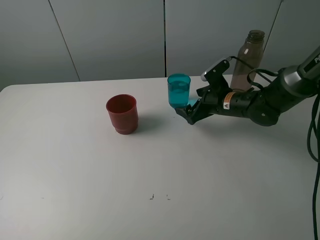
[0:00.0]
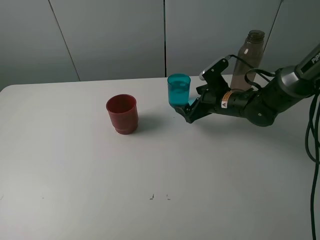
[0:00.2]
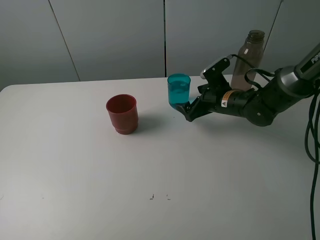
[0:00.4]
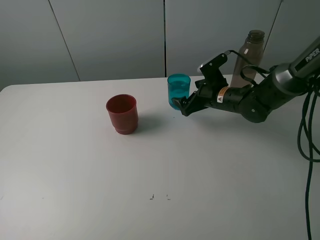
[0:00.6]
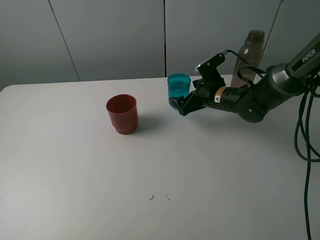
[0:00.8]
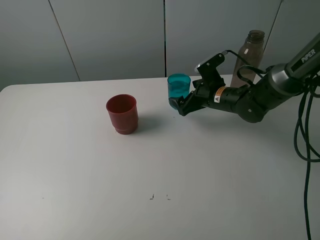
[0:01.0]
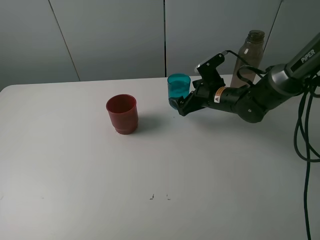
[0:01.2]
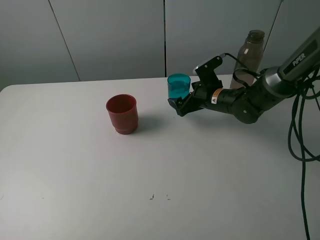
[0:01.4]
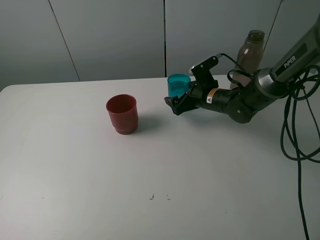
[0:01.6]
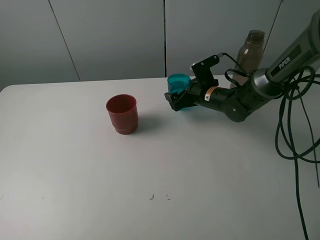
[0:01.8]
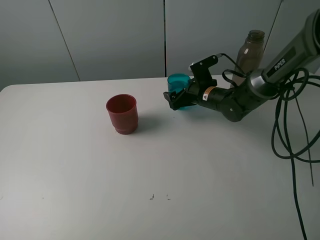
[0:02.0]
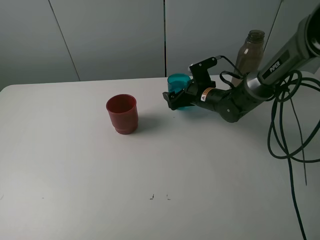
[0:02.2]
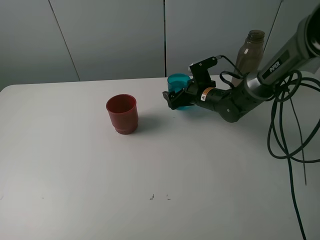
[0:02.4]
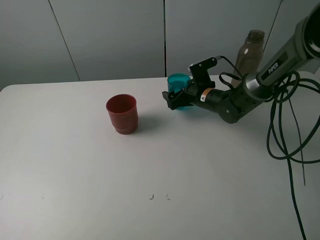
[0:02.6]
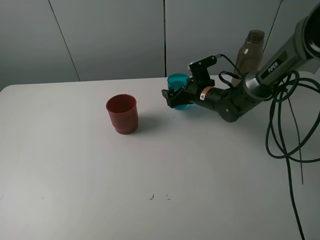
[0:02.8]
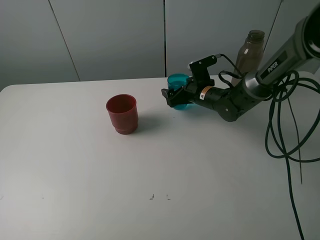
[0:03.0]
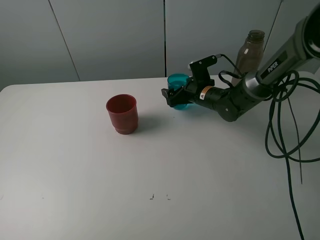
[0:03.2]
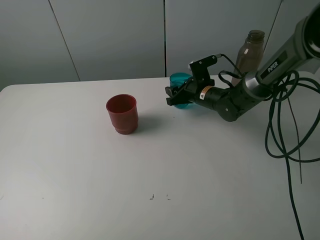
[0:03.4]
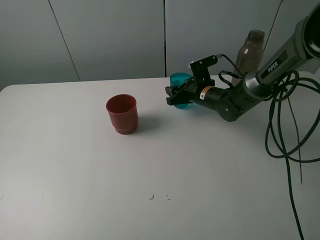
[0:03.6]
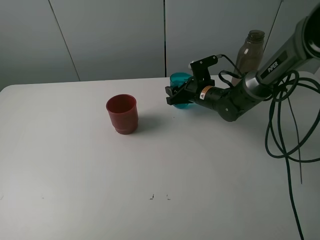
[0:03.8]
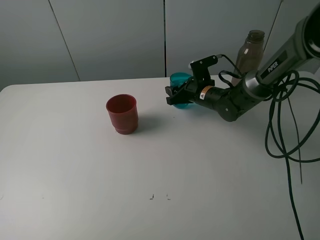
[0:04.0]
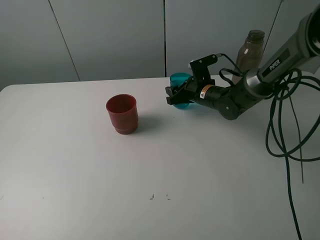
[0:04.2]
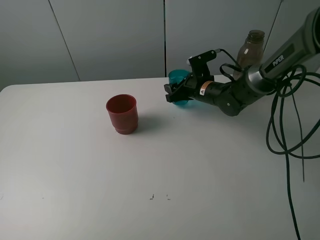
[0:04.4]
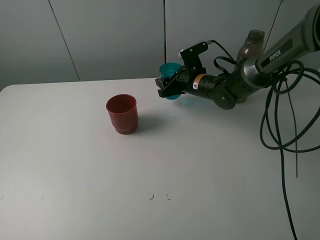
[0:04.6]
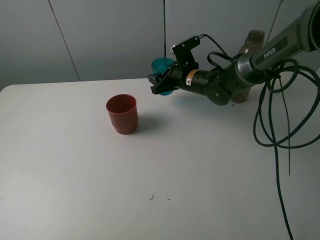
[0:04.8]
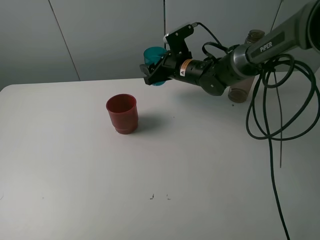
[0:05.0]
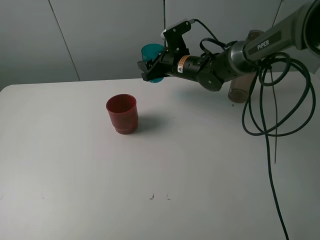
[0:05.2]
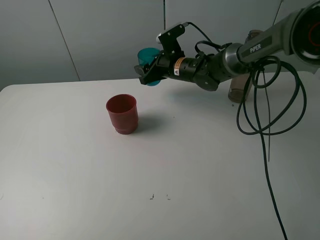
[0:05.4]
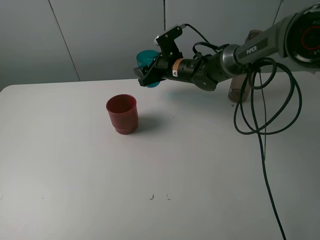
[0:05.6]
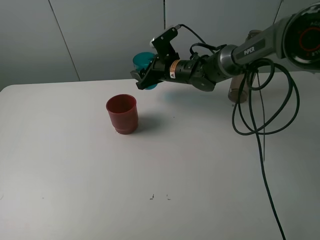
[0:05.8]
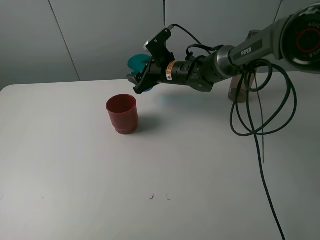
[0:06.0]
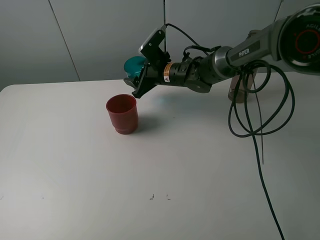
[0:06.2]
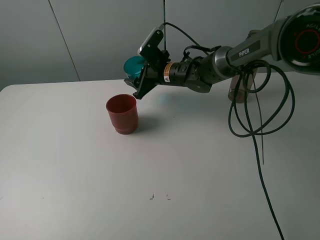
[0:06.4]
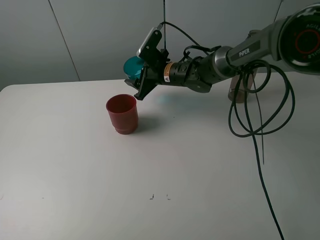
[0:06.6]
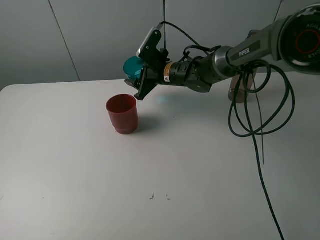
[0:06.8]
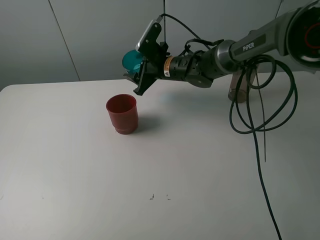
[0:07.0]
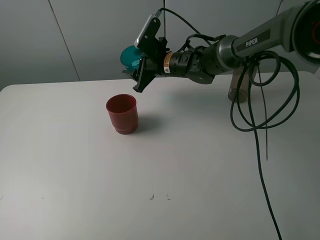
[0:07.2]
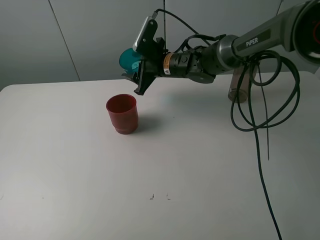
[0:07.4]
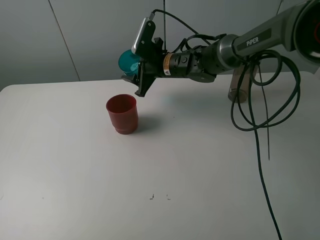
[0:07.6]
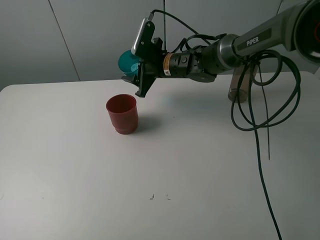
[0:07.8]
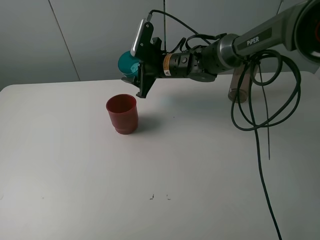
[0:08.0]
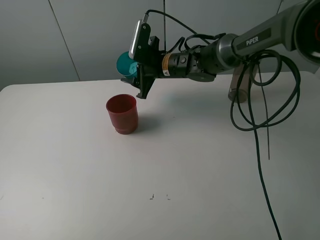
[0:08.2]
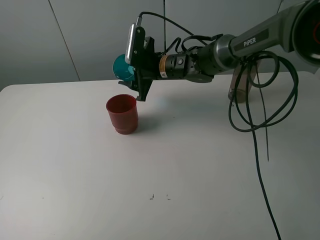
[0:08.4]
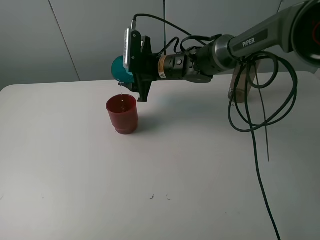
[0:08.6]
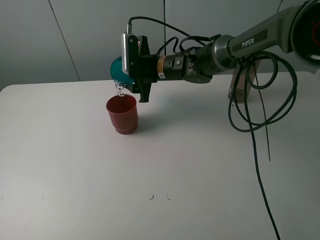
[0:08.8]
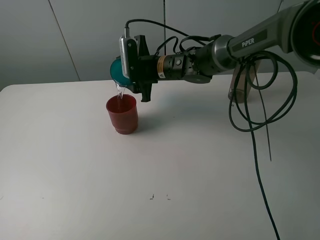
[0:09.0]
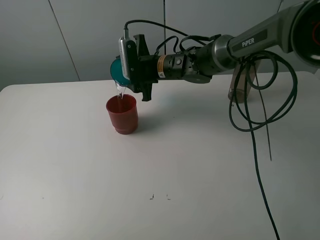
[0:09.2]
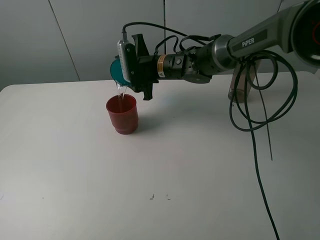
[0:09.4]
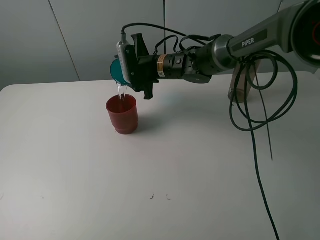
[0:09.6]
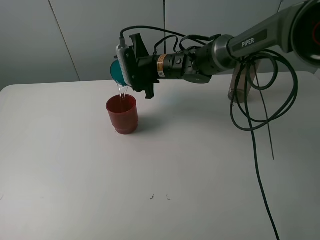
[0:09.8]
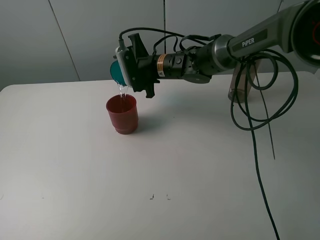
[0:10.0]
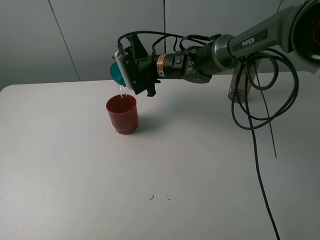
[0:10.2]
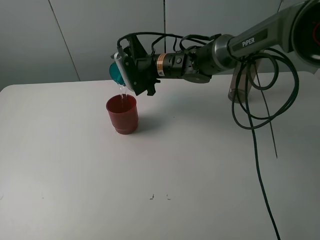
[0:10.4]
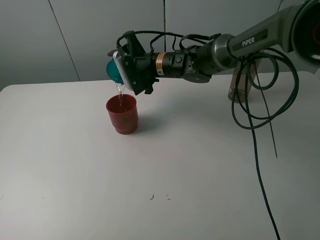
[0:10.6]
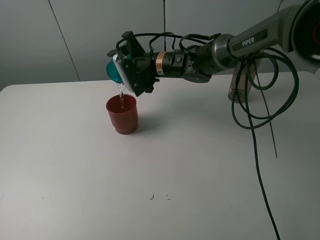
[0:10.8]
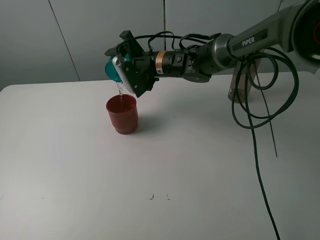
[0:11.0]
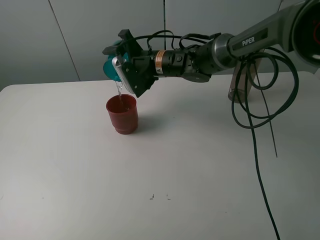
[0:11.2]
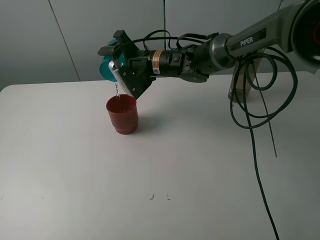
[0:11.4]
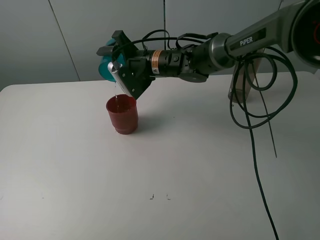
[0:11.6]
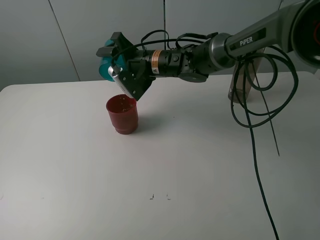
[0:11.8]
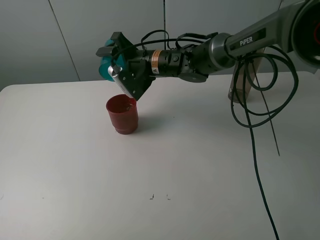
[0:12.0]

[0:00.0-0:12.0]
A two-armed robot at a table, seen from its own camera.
Task of the whole recording: pick up the bottle and pour water into the cup, then pick up the cup containing water and pour it into another cup.
Step, 0:00.0 to 0:03.6: Grasp the blue cup with the right gripper.
0:00.0 to 0:01.6: The grippers move only a little.
0:01.6 to 0:03.0: There are only small adjustments of the grippers.
0:03.0 to 0:04.4: The right gripper closes its fingers.
0:04.4 to 0:06.0: The right gripper travels to the left by some 10 cm.

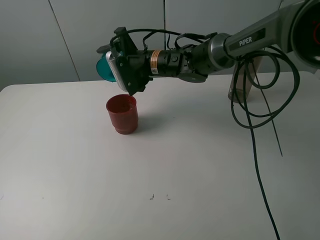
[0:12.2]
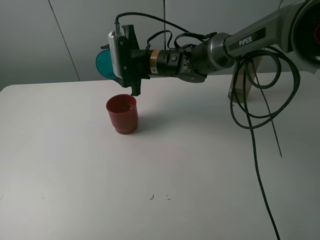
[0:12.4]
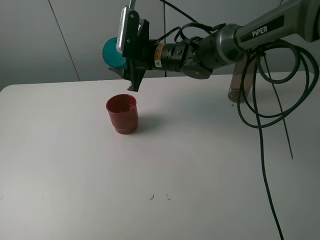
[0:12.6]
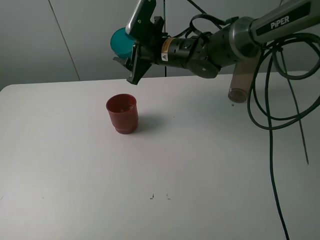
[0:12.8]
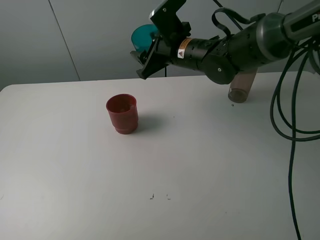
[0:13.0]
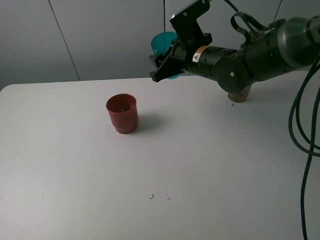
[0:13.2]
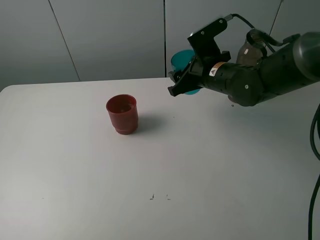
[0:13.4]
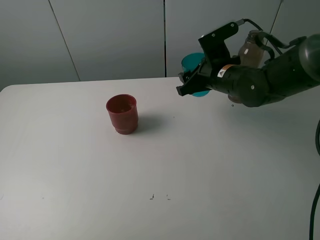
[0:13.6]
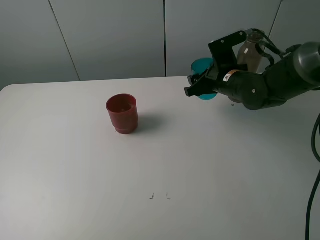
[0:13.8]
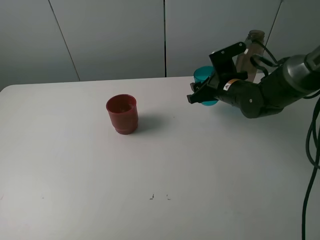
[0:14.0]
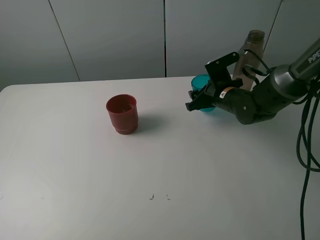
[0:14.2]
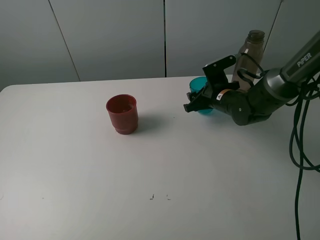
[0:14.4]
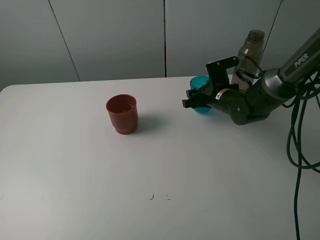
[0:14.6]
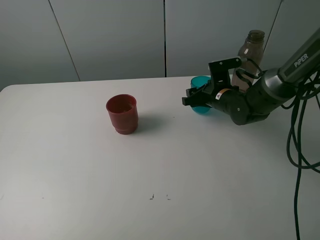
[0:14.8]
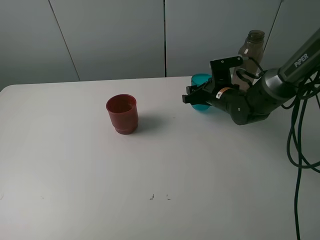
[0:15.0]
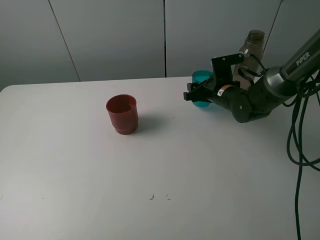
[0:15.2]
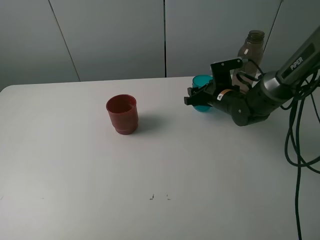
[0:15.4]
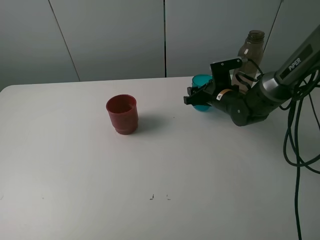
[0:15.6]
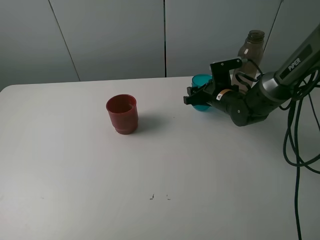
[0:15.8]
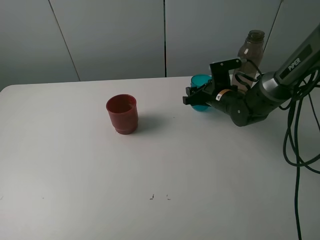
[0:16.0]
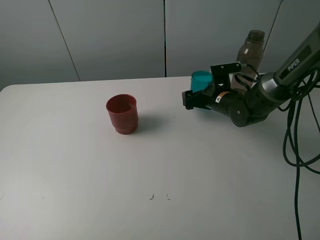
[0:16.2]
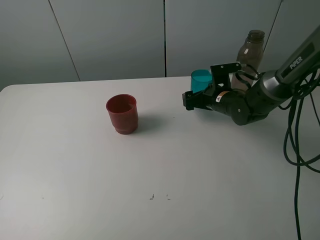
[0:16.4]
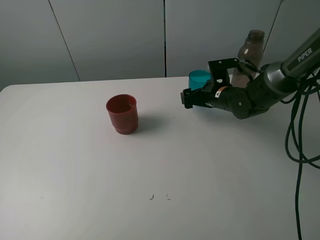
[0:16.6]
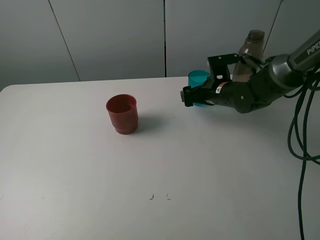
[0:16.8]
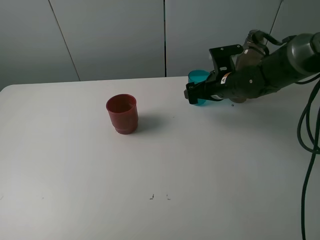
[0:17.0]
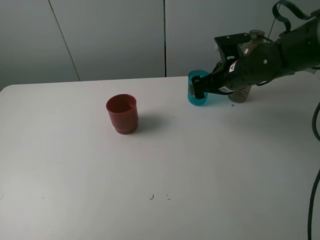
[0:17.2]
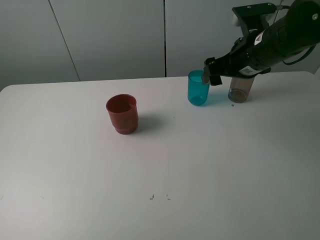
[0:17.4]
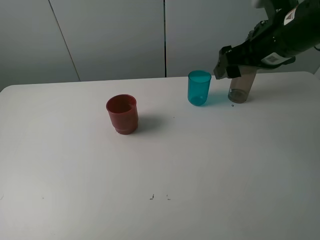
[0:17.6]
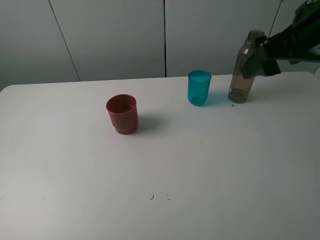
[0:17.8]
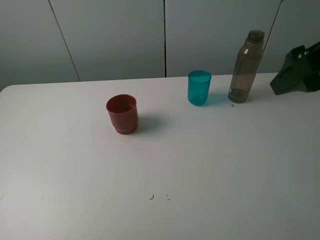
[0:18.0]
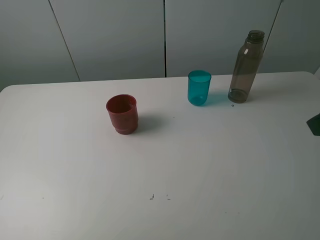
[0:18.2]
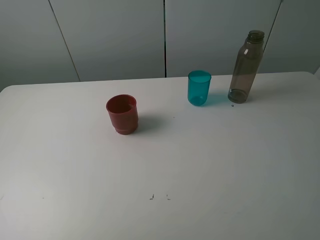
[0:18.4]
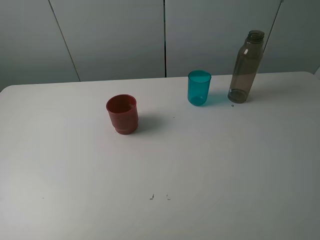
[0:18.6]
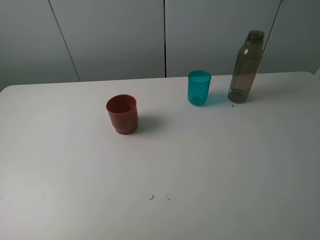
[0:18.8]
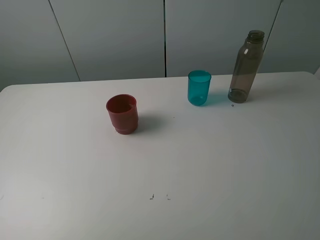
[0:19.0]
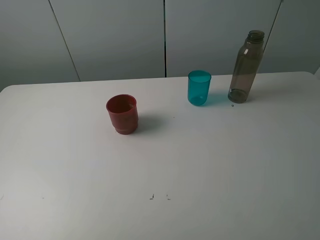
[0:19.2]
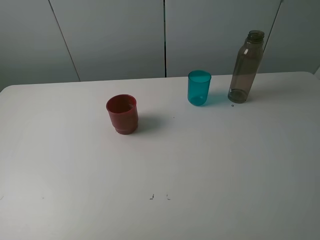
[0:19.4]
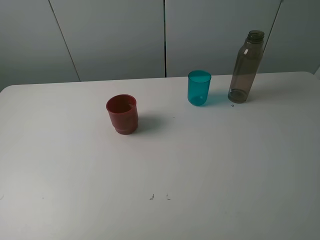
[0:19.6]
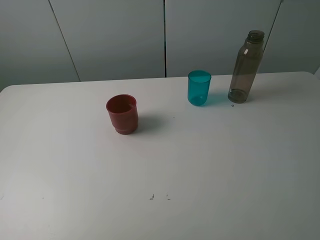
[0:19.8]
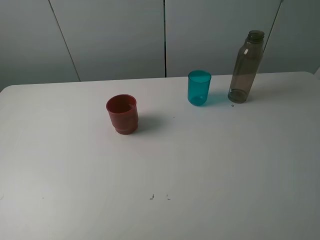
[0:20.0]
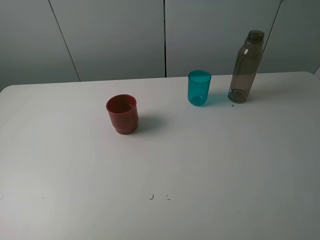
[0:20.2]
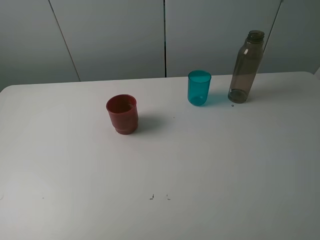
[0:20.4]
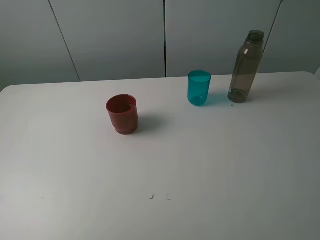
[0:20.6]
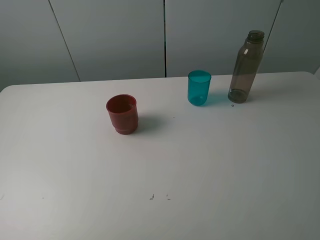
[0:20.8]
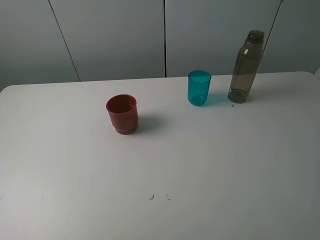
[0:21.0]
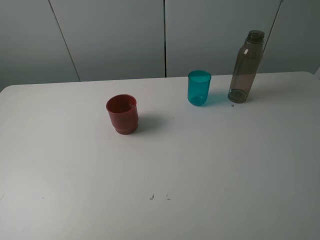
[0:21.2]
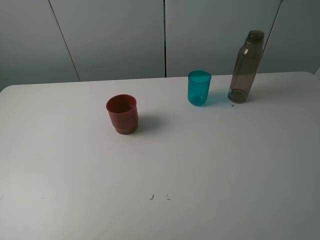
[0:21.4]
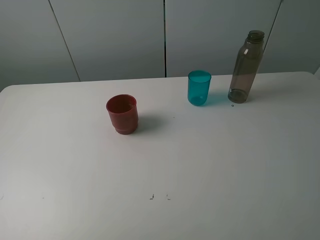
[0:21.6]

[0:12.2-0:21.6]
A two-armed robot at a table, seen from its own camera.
Task of the whole recording: pick up the bottle and pour water into the cup, then pick up the cup containing water and pour it into another cup.
Step, 0:12.2 to 0:16.2: Place the blue cup with the right gripper.
0:12.2 to 0:13.8: The right gripper shifts about 15 cm to the right.
0:13.8 to 0:15.4: The right gripper heads downward, covering roughly 5 cm.
0:15.4 to 0:17.0: The right gripper goes approximately 5 cm upward, and opens up.
0:17.0 to 0:18.4: The right gripper goes approximately 35 cm backward, upward and to the right.
0:20.0 to 0:21.6: Both grippers stay about where they are.

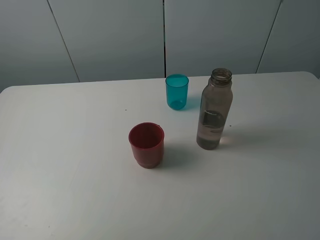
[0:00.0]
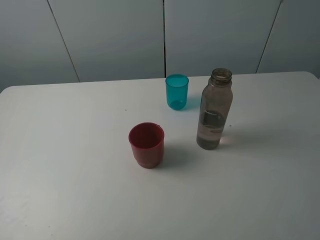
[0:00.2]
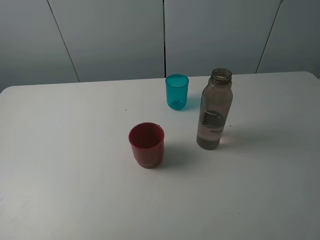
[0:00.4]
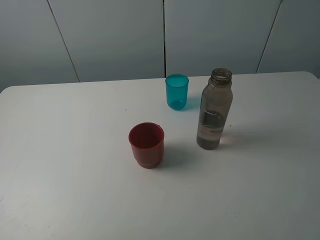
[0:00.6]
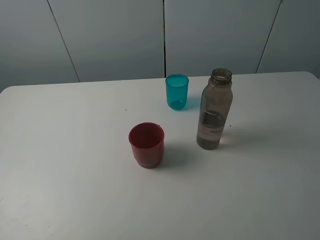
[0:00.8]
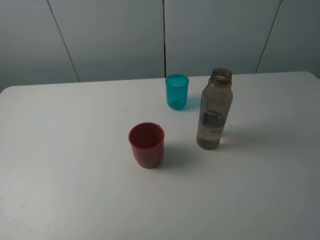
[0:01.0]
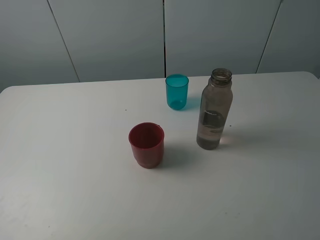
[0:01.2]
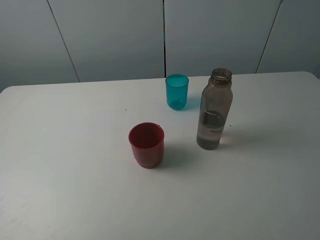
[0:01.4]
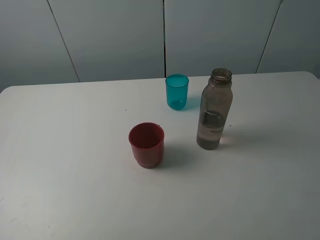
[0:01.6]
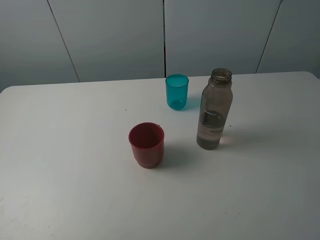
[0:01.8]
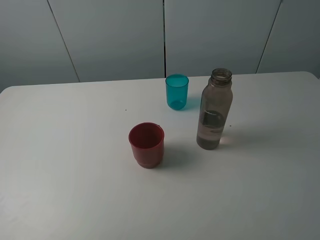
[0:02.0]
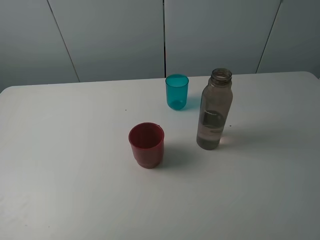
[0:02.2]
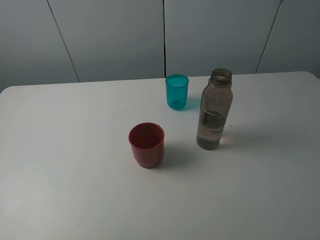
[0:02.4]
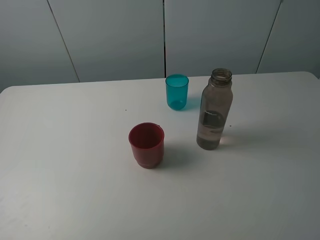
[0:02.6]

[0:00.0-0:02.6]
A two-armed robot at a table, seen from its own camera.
Task of the whole recording: pick up the bottle and pour water into the cup, then pick up the cup containing water and pour it into another cup.
0:00.0 to 0:01.2: Both grippers stay put.
